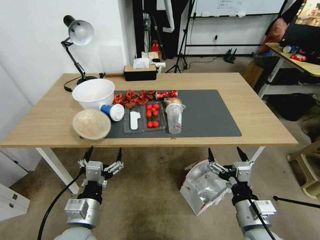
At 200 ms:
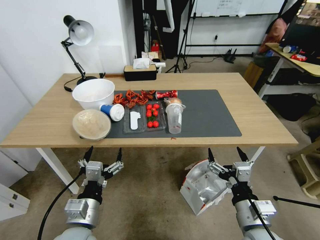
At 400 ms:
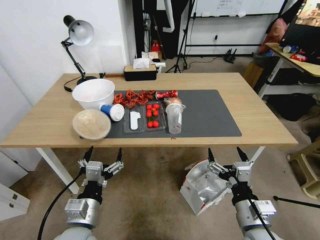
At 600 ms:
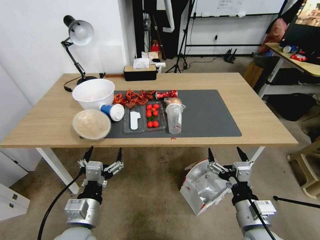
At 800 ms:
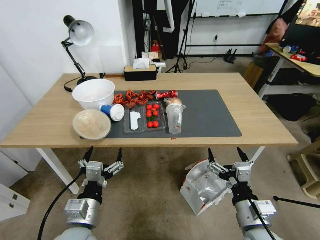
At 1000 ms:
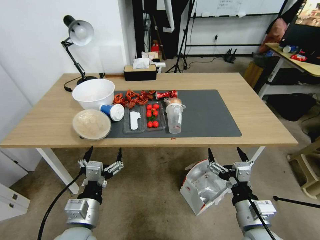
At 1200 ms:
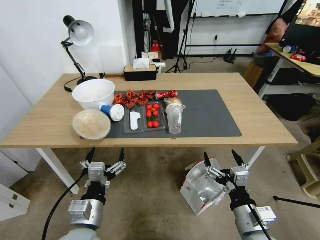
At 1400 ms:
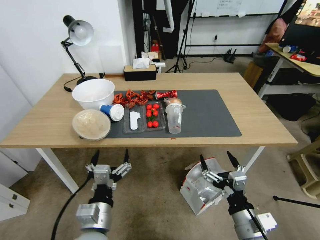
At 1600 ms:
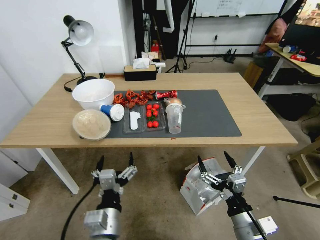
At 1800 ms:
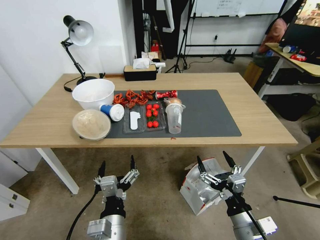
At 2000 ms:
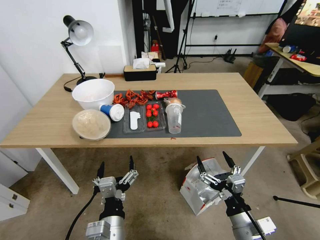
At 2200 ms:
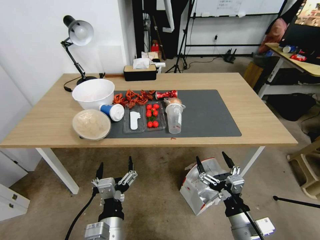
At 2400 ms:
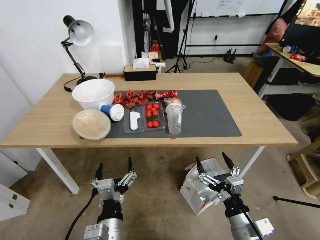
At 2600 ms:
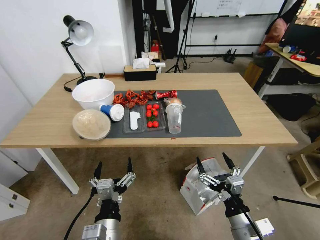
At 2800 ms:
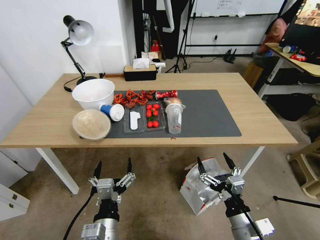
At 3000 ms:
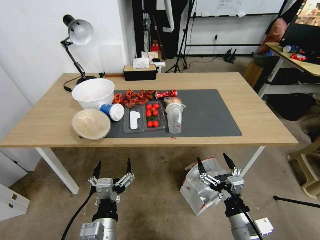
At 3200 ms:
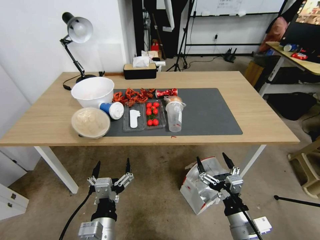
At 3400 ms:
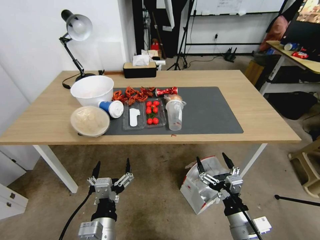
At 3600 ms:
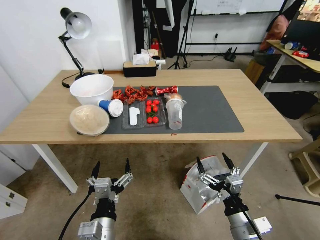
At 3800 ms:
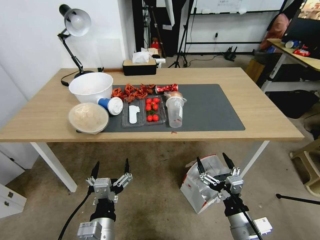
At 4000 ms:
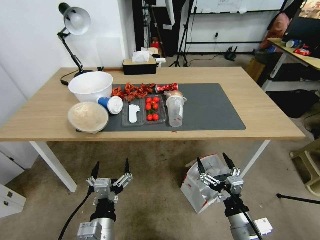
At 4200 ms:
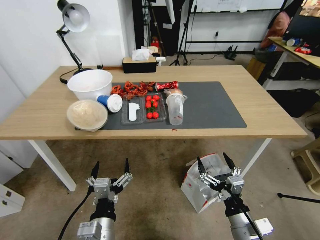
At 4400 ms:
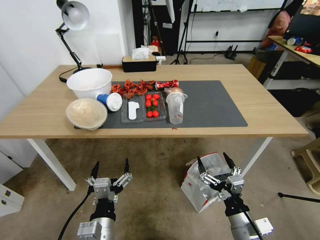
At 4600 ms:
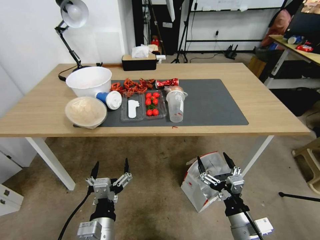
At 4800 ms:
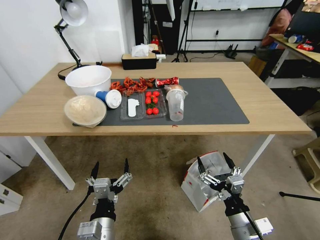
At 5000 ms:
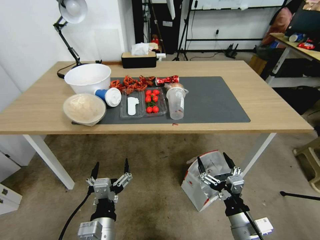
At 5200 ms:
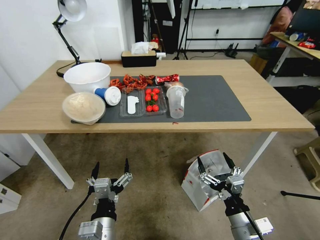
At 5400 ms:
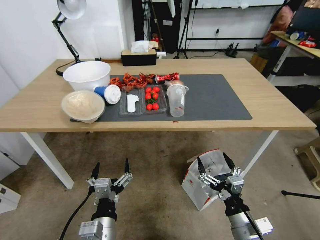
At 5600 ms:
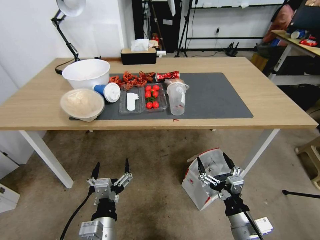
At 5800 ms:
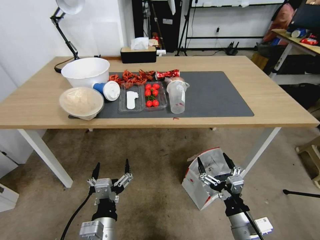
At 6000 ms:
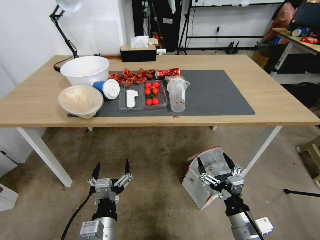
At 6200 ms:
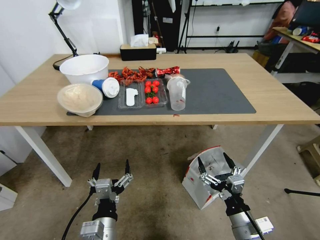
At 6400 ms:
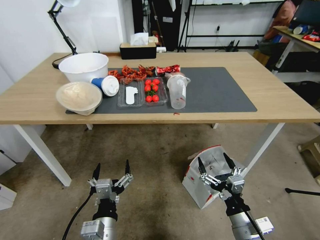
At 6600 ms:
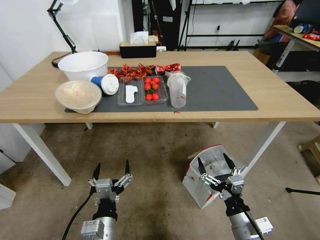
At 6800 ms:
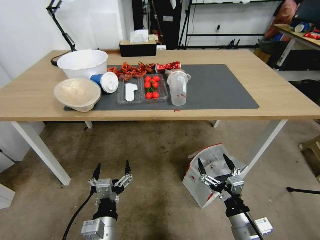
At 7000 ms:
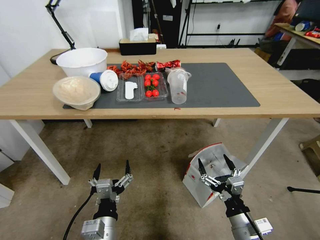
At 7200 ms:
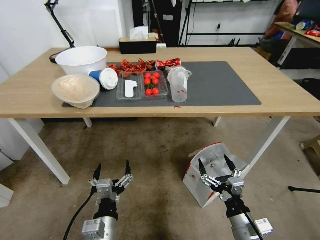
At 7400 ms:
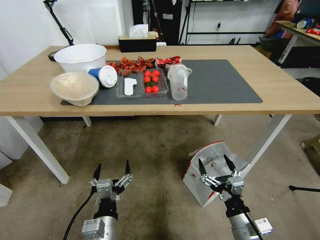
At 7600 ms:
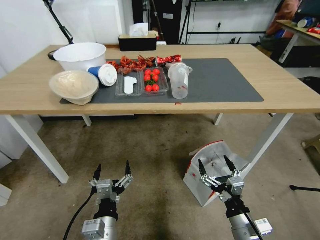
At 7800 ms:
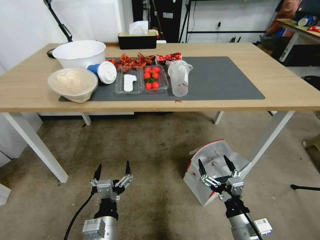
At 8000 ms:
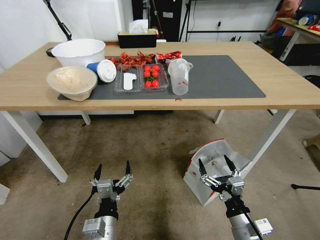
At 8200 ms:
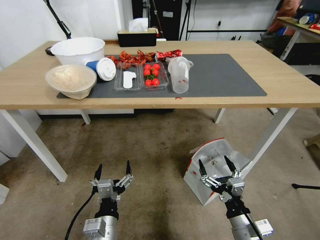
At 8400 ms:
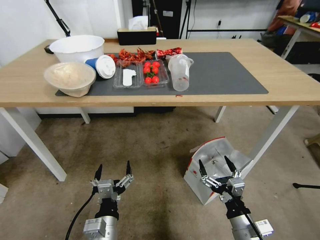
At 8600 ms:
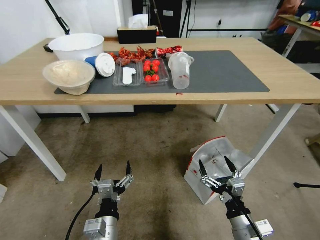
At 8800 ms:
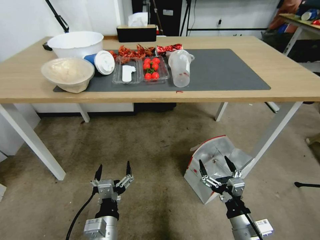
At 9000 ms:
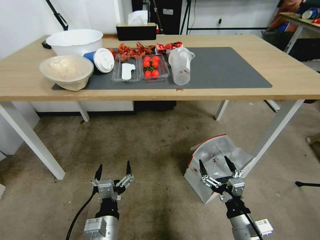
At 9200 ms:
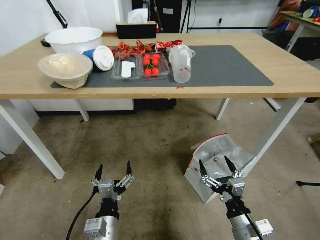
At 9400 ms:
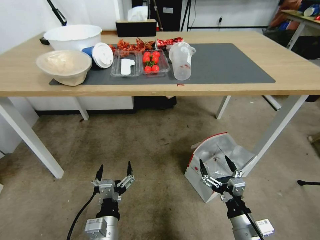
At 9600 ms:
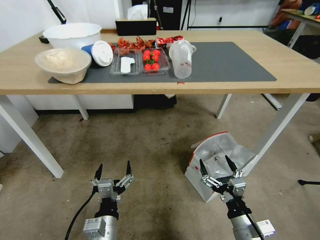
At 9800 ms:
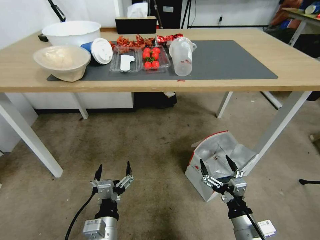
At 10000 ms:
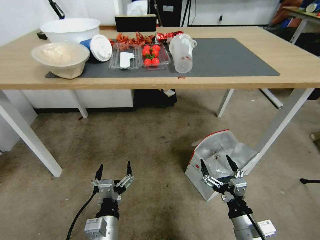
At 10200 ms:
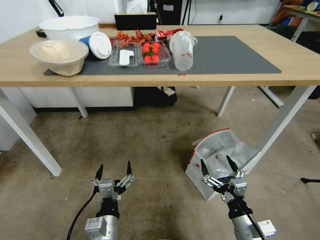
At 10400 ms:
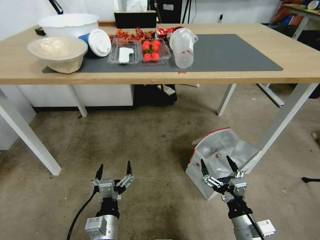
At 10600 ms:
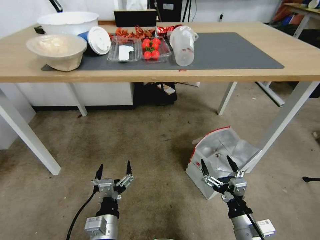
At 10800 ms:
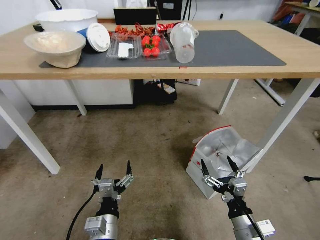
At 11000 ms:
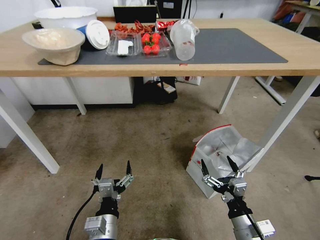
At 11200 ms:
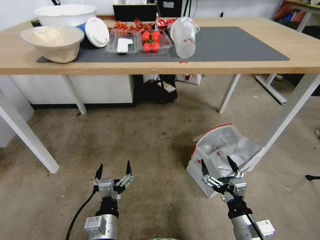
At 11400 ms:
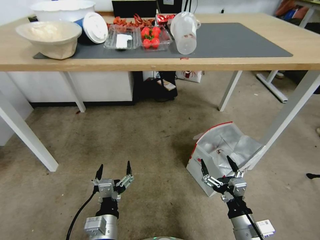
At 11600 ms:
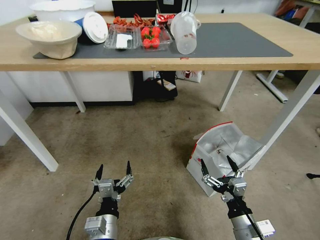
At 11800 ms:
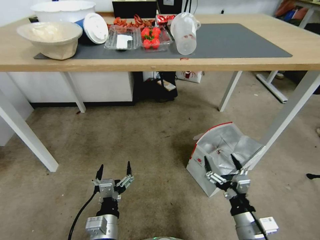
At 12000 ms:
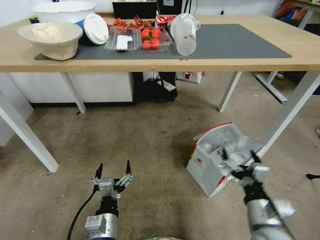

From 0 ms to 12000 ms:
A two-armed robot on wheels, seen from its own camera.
Task of the whole recording: Pick up the food delivery bag from the floor and place it on the table.
From 1600 ms to 3000 ms: The grippers make only small movements.
From 10400 ms to 12000 ms: The right gripper moves upward, approximately 5 cm.

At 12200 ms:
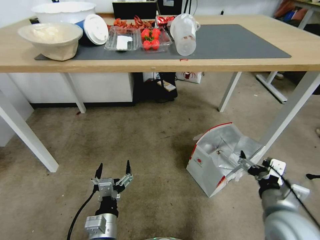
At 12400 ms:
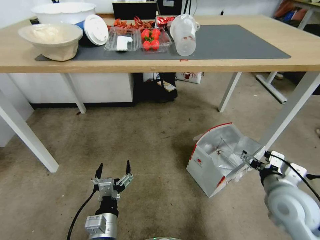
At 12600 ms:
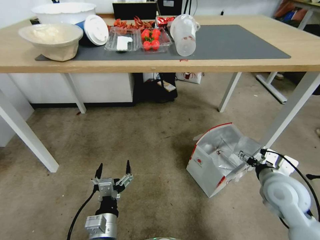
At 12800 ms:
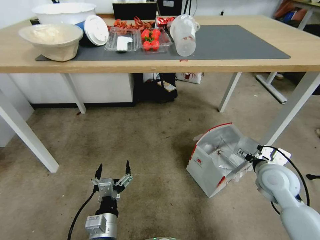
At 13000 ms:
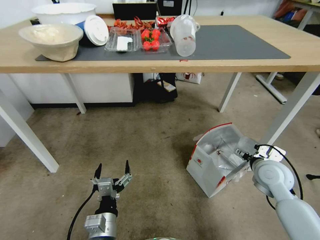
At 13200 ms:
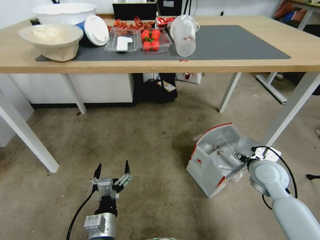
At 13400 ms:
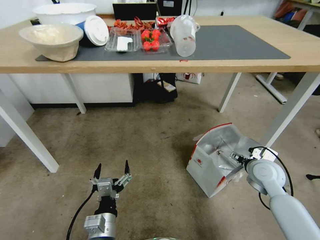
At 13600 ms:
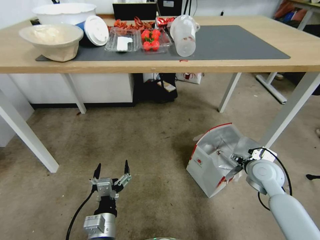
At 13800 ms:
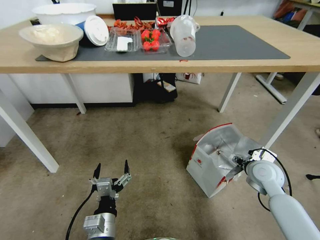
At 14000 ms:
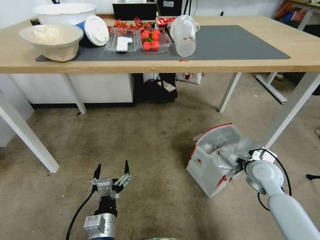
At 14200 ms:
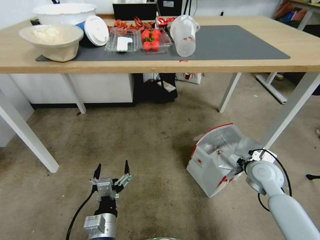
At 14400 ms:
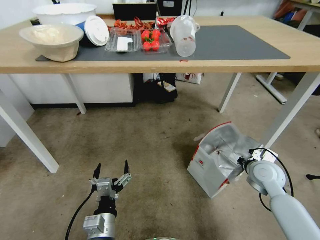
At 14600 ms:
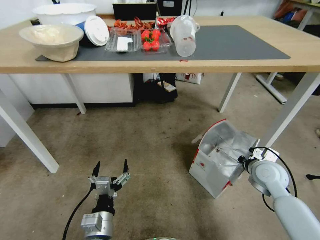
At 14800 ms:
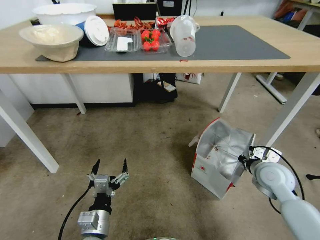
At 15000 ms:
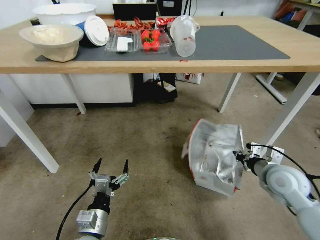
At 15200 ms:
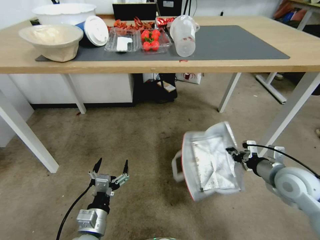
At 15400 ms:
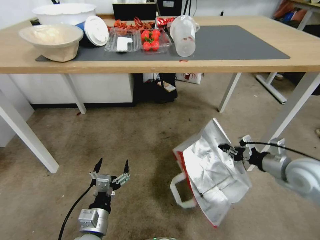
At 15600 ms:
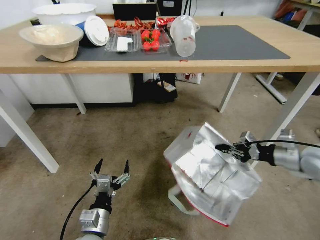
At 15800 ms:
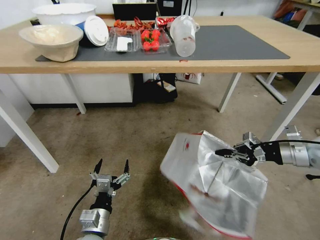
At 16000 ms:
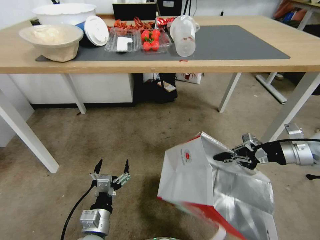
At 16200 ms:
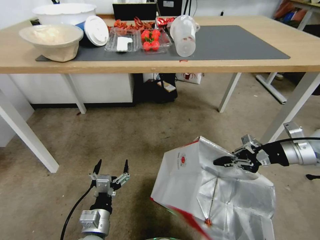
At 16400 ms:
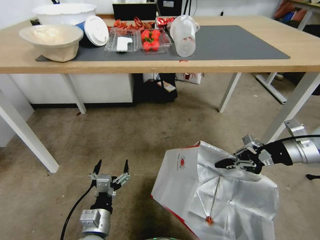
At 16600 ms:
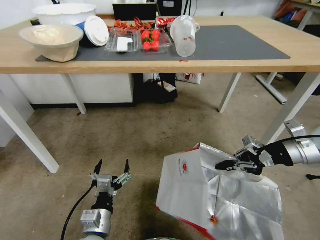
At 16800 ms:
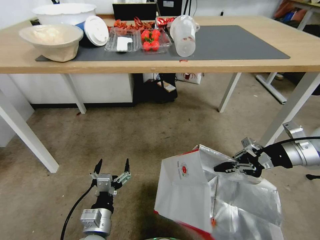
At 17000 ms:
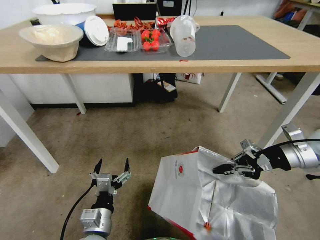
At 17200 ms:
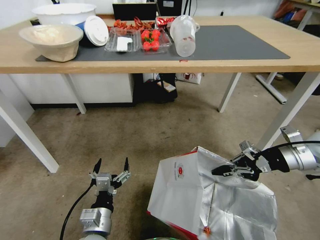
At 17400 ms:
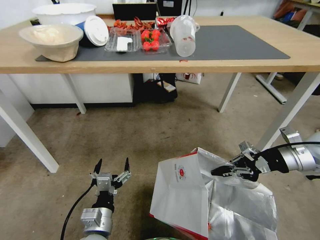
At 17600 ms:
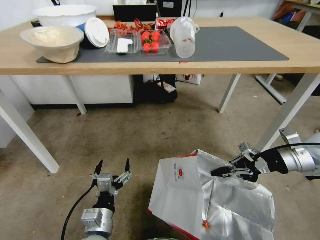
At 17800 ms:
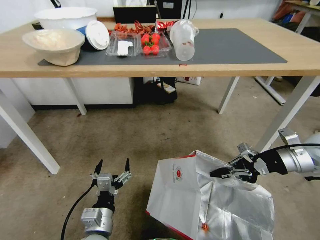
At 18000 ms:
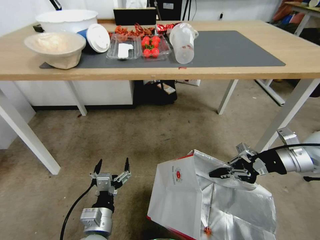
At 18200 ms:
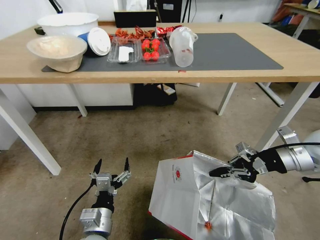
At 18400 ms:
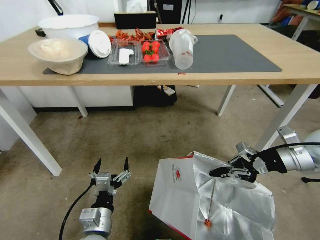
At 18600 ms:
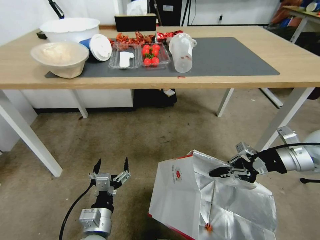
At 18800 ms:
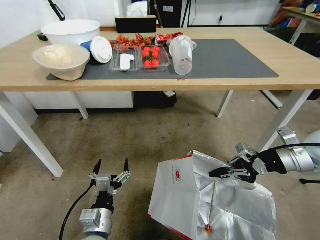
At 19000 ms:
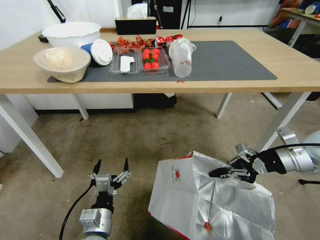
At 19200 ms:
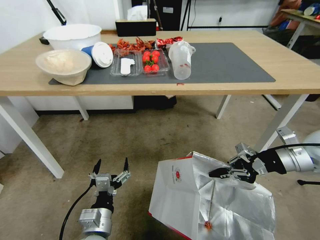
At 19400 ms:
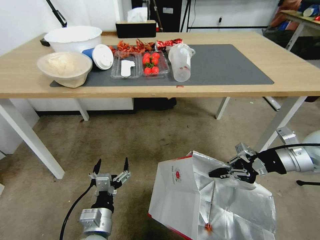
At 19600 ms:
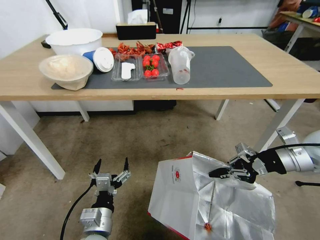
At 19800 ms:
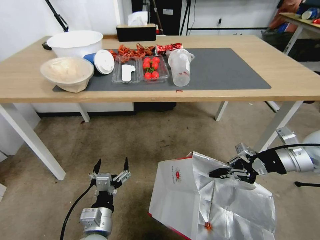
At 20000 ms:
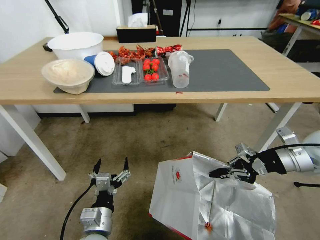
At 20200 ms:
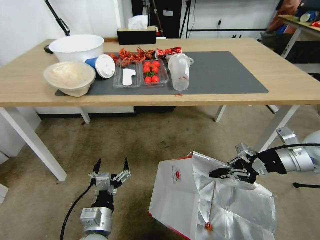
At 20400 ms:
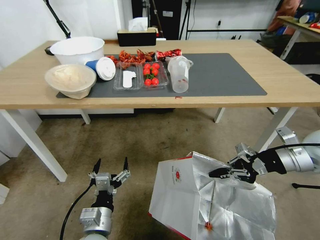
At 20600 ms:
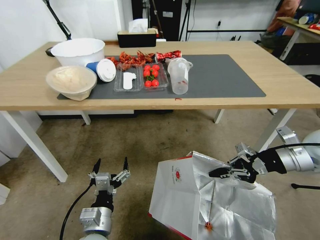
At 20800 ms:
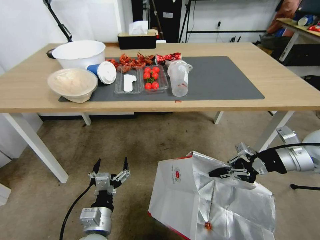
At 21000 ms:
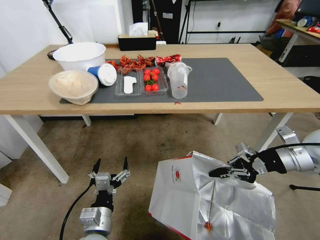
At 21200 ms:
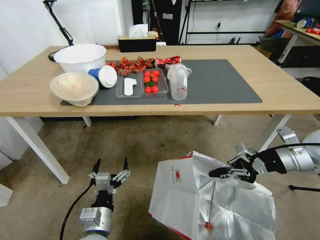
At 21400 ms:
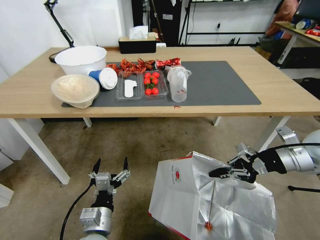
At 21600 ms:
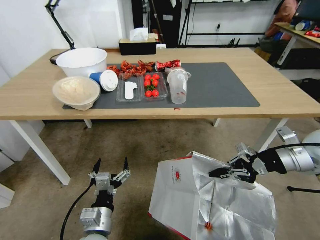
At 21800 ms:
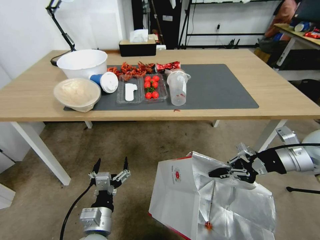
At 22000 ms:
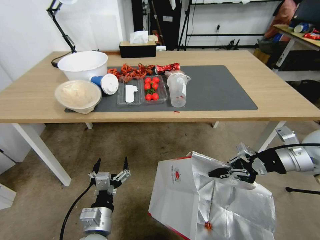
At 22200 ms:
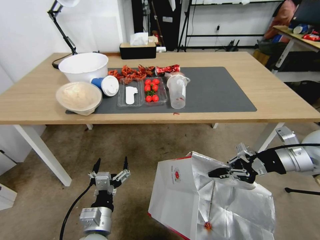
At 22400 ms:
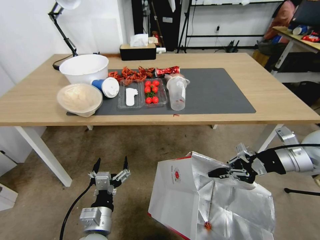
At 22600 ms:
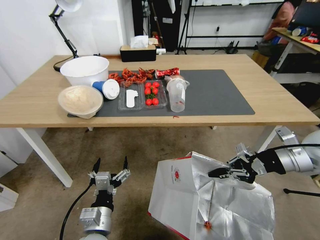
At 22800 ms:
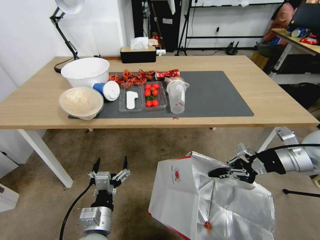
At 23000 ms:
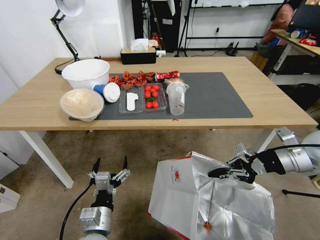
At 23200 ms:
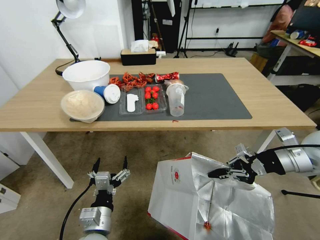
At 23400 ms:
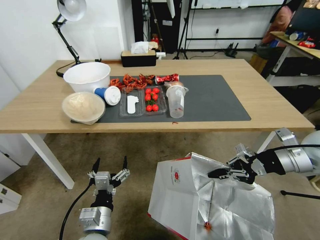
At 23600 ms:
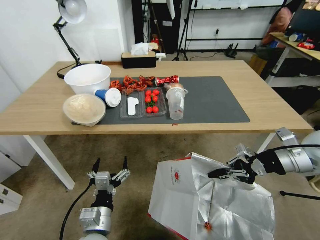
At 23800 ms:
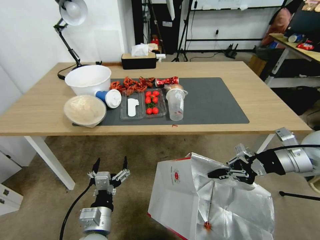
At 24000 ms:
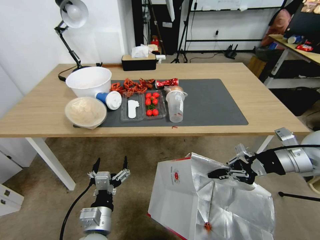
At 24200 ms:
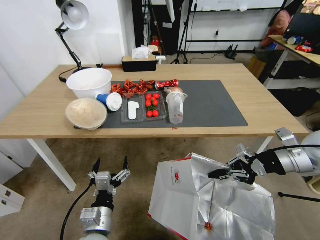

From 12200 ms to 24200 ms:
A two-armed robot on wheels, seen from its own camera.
Task of the whole recording: Pick up the food delivery bag from the floor and place it on the table.
From 12200 ms to 13800 ms: The right gripper shifts approximately 15 cm forward.
From 13800 ms to 15200 ms: The right gripper goes roughly 5 cm upward and backward, and closes.
From 15200 ms to 16600 ms: The right gripper shifts about 15 cm upward.
